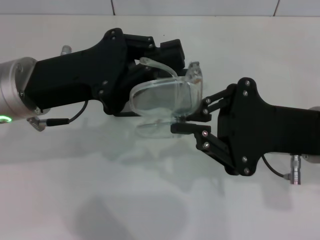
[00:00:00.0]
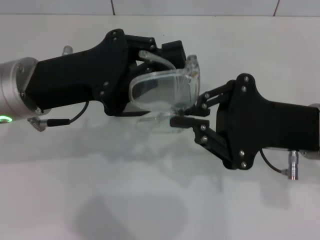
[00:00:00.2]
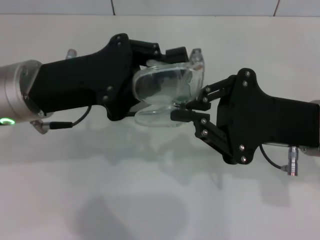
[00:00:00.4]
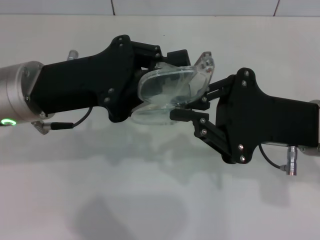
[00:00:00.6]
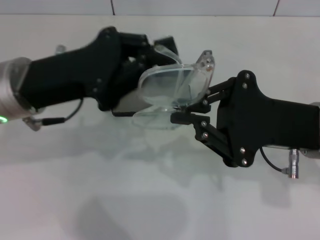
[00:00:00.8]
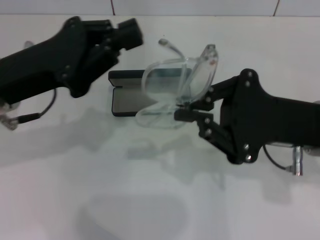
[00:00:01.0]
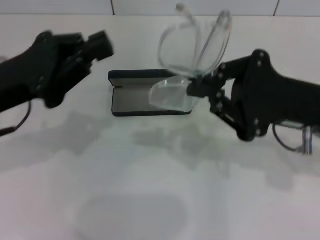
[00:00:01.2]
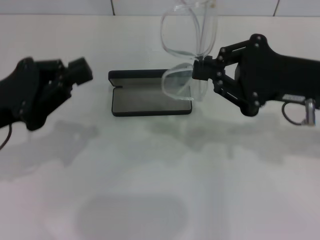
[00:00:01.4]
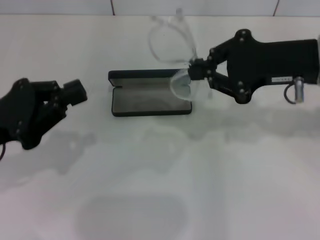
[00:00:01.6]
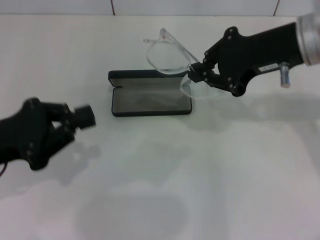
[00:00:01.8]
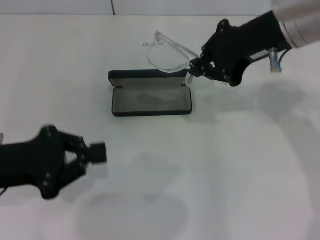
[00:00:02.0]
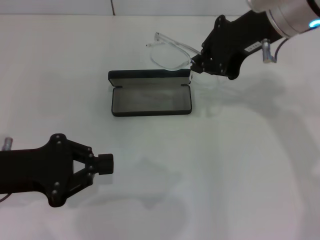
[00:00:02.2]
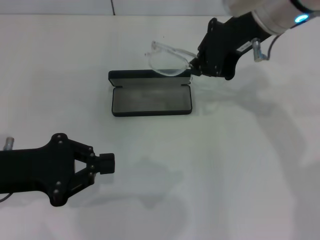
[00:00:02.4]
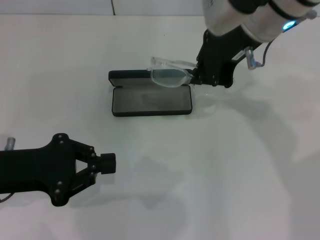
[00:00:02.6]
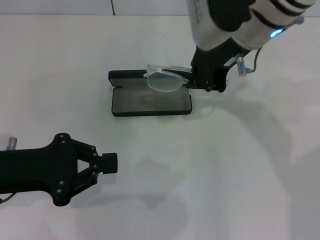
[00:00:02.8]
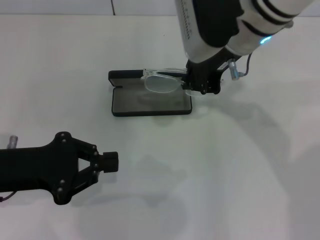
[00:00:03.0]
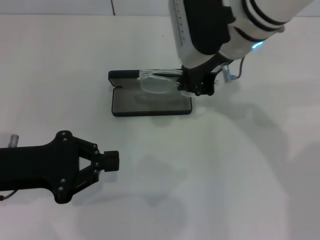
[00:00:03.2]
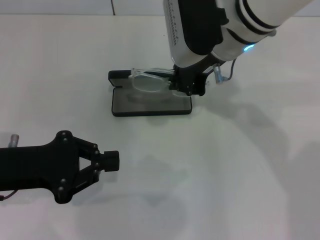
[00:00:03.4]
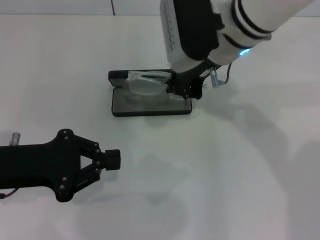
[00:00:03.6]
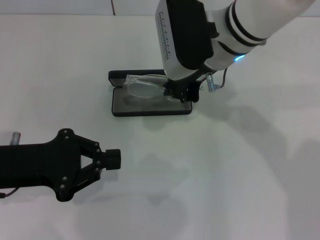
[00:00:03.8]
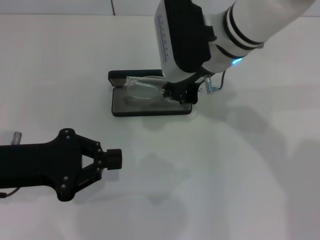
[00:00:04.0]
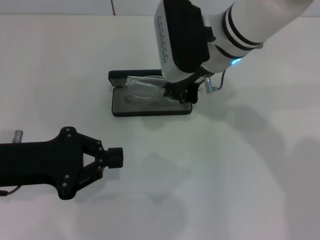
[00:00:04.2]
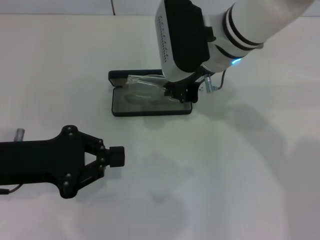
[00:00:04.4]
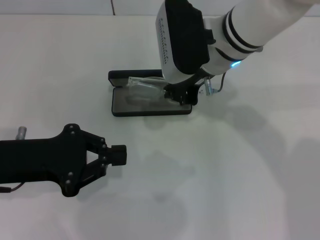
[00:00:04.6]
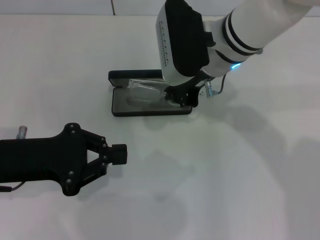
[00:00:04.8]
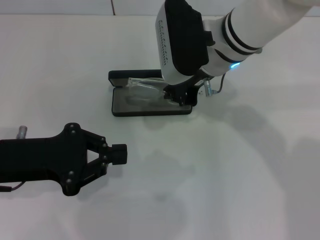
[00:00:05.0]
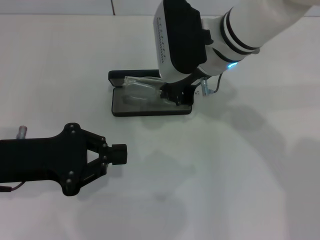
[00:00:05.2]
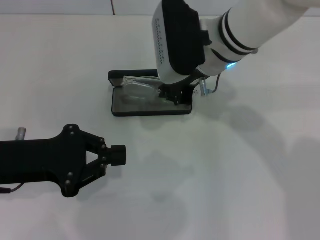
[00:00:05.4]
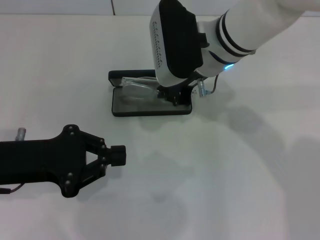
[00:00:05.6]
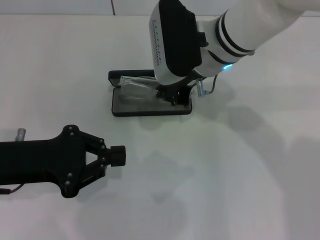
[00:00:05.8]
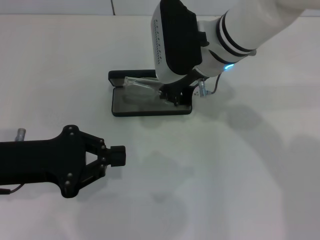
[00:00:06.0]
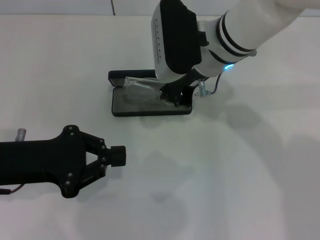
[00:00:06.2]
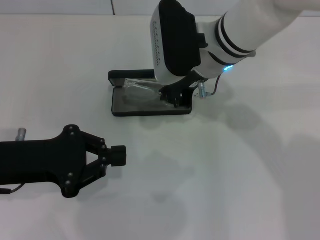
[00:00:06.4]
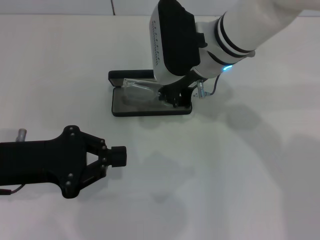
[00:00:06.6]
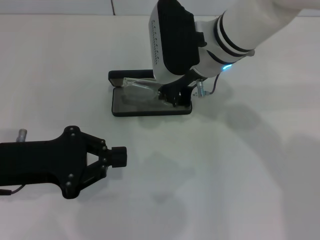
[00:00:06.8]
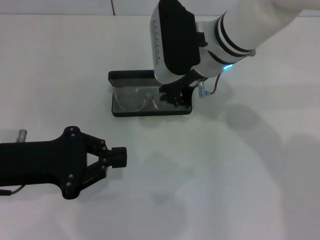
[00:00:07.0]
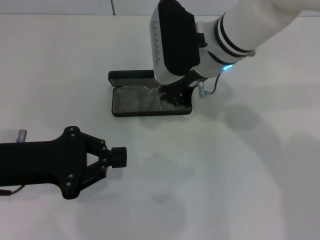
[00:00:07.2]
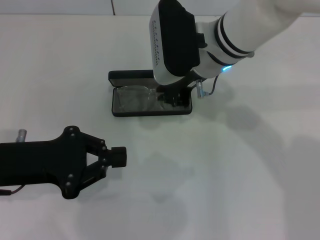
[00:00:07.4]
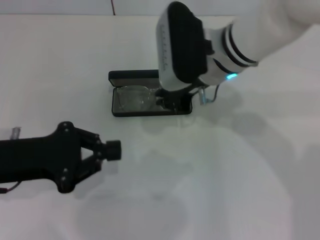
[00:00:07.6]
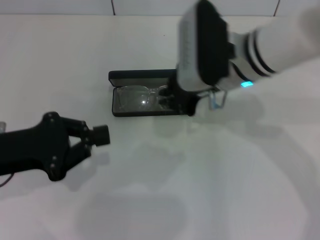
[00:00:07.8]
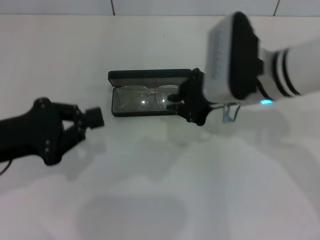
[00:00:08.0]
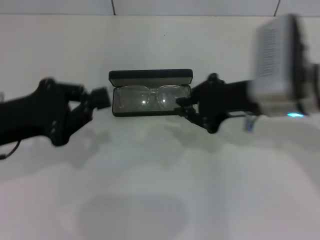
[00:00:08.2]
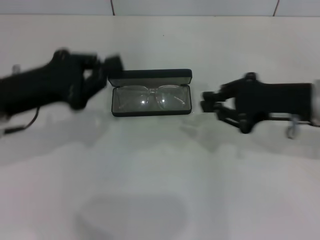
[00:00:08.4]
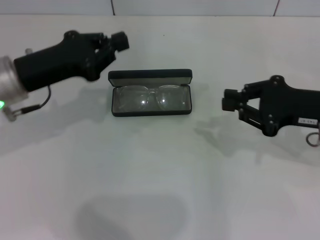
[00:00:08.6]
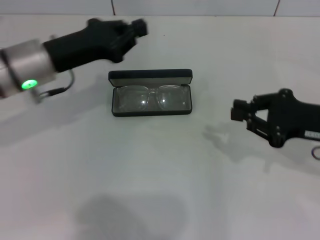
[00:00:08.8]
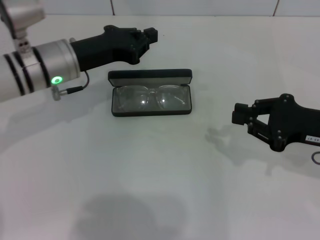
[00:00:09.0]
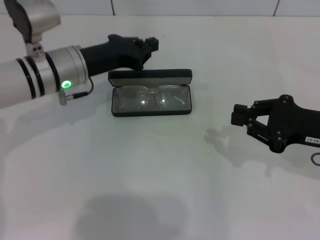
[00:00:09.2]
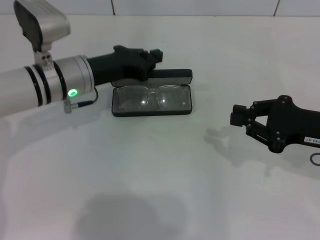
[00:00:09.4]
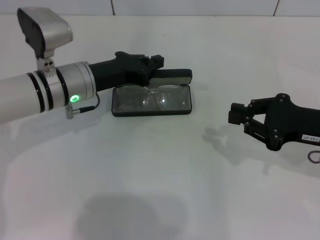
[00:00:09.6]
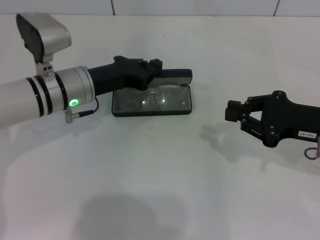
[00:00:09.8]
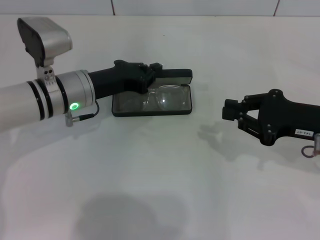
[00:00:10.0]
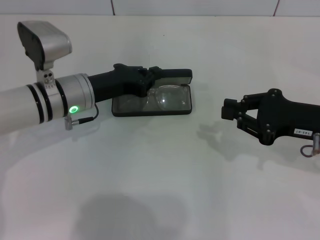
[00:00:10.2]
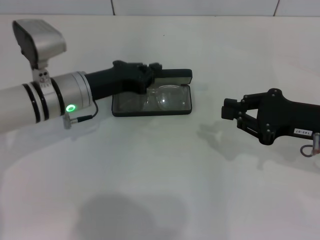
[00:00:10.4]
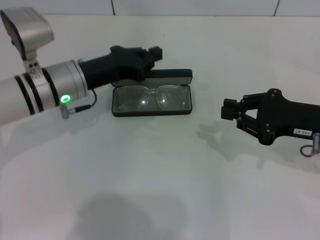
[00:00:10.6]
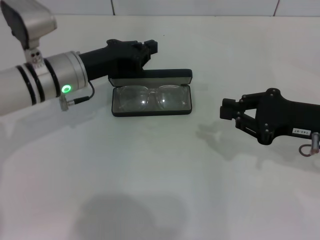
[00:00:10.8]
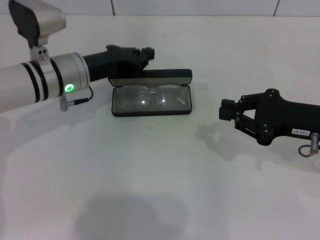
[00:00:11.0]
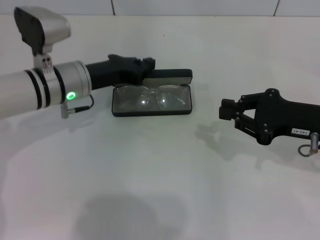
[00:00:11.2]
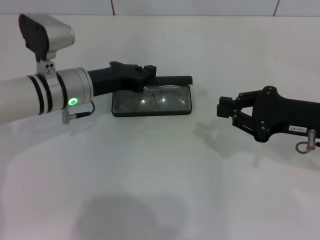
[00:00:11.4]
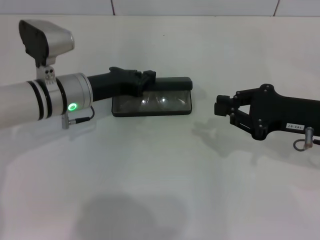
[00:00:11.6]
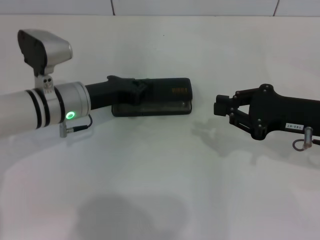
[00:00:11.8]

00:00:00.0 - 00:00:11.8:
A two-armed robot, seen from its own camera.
Step, 00:00:00.0 - 00:00:07.4: Put the glasses into the case with your right hand.
00:00:00.0 - 00:00:01.4: The left gripper goes about 10 cm to the left; the right gripper ends up about 5 cm from where it was.
00:00:01.4 - 00:00:03.0: The right gripper goes approximately 15 cm to the left, forward and upward.
00:00:03.0 - 00:00:04.4: The grippers stay close to where they were, moving slightly.
00:00:04.4 - 00:00:06.0: Neither gripper changes place.
00:00:06.0 - 00:00:07.4: Both grippers stay put.
00:00:07.4 - 00:00:08.8: The right gripper heads to the right and backward, covering approximately 25 cm. Meanwhile the left gripper moves forward, about 10 cm.
00:00:08.8 - 00:00:10.4: The left gripper travels downward by about 5 cm.
00:00:10.4 - 00:00:11.8: The grippers move only a little.

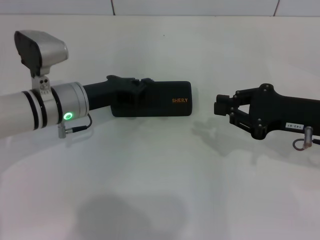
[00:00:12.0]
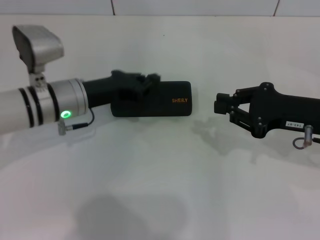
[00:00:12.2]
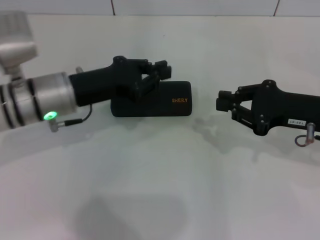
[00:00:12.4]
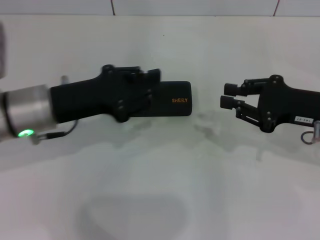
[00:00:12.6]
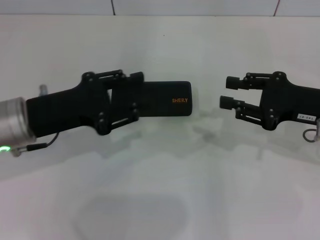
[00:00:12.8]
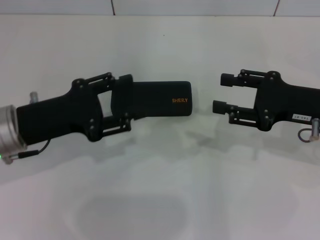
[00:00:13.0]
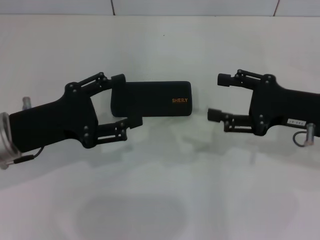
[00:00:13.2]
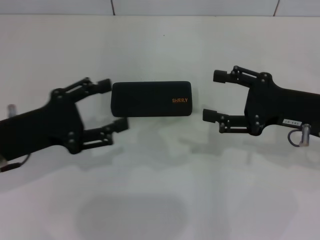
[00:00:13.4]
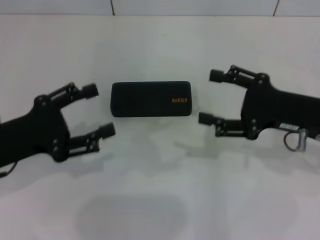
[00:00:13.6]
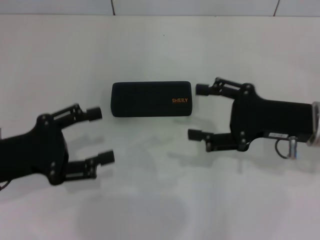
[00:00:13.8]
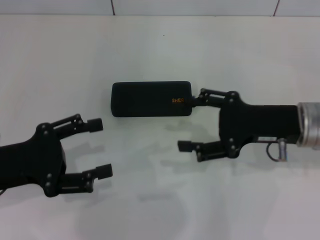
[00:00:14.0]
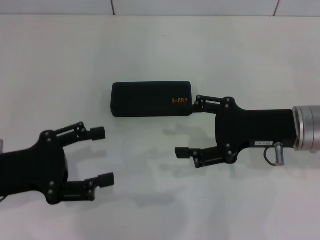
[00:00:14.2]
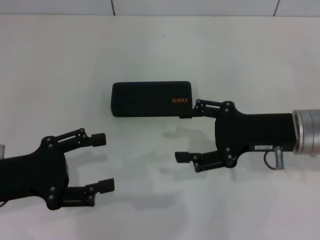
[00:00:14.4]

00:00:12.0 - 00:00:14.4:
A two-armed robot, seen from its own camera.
00:00:12.0 - 00:00:13.2: The right gripper opens its fingers; the left gripper is displaced backward and to the left by about 10 cm, and opens up.
00:00:13.2 - 00:00:14.4: The right gripper opens. The left gripper ends up about 5 cm from where it was.
